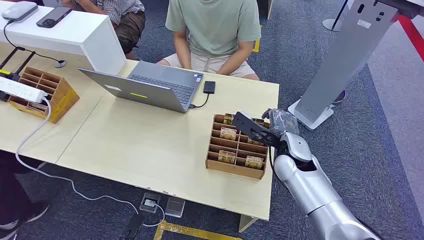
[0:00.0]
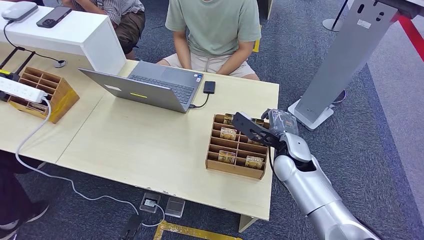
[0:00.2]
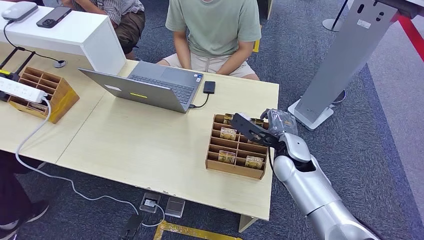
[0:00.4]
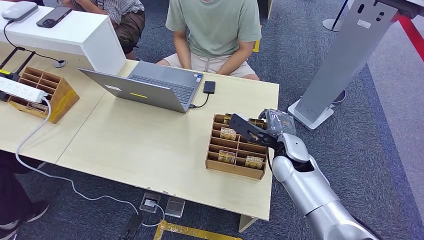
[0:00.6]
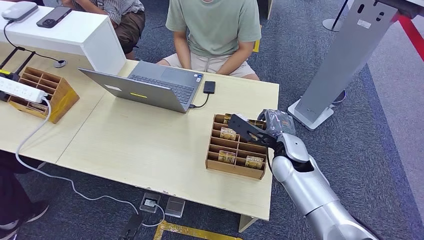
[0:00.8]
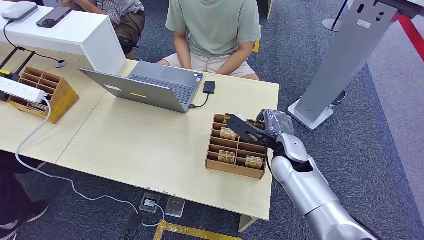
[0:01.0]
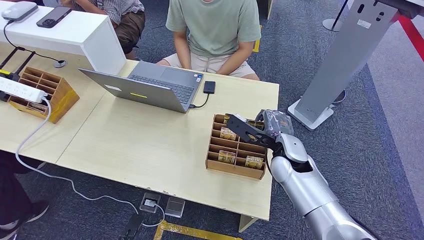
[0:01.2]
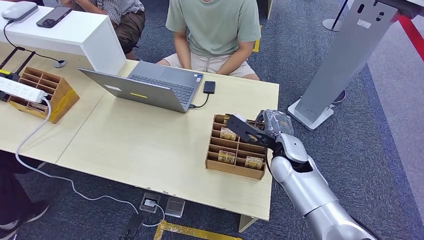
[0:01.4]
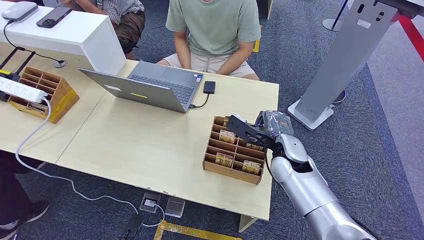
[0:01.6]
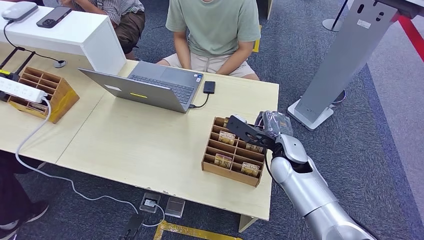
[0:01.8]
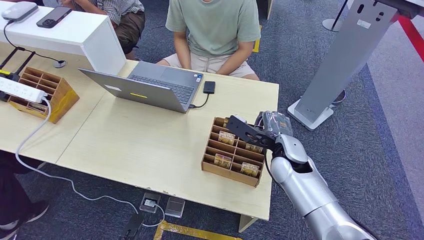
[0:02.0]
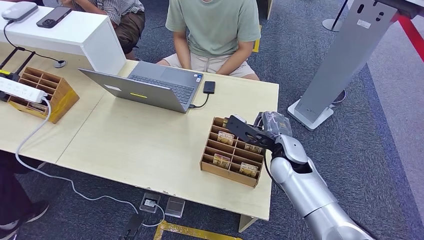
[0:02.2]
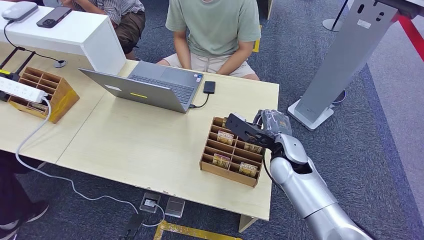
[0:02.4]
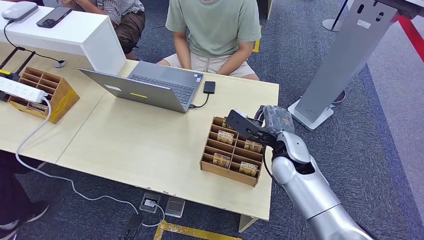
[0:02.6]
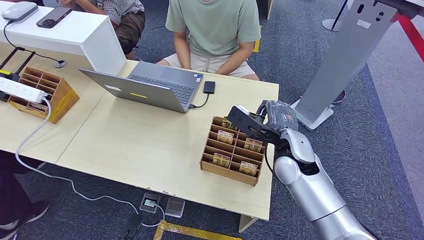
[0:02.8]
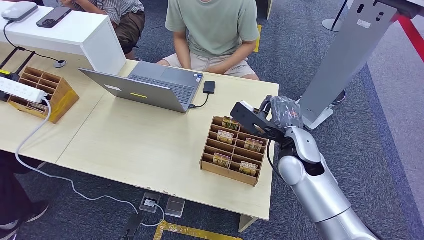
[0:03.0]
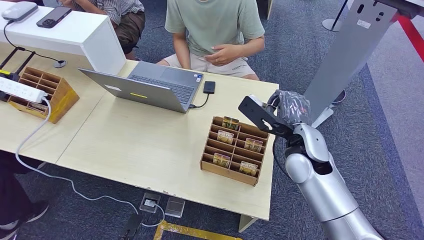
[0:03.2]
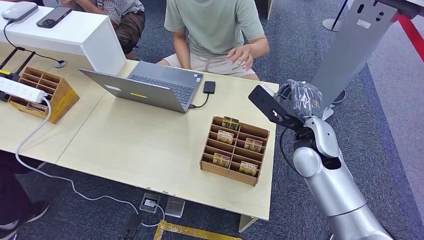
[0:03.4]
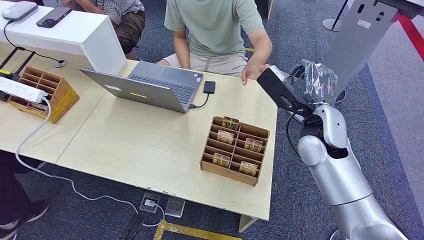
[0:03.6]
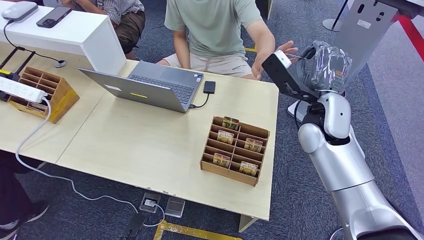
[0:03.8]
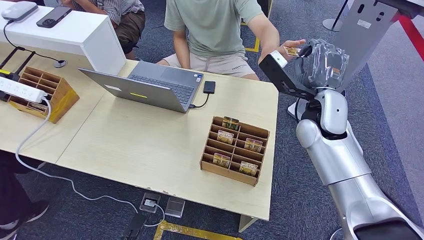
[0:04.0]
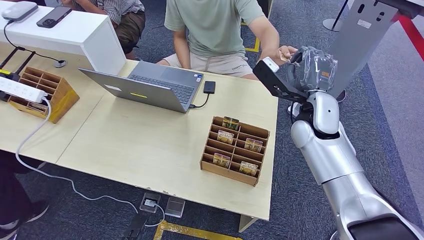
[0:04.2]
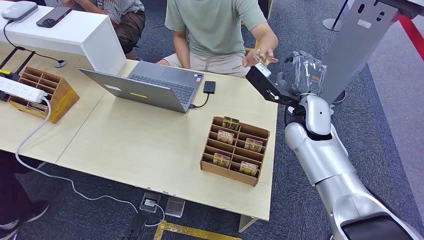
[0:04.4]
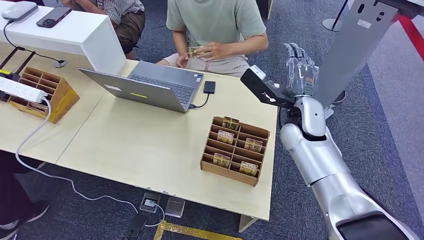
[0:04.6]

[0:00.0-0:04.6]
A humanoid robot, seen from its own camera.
Step, 0:00.0 to 0:02.8: Pick up the room card from the card holder.
Step, 0:03.6 to 0:04.4: Hand the room card to the target.
0:01.6 to 0:03.0: The hands make only small movements.
0:03.0 to 0:04.6: The right hand is displaced forward by about 5 cm.

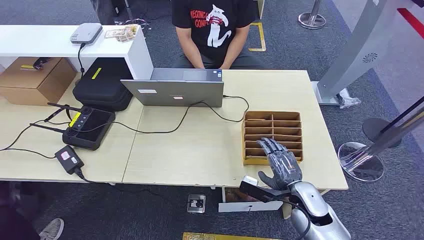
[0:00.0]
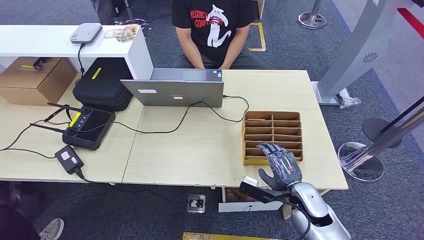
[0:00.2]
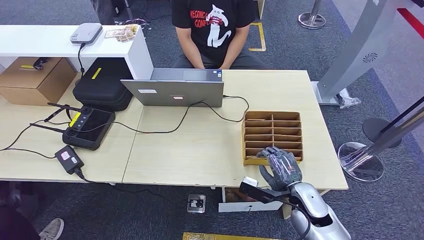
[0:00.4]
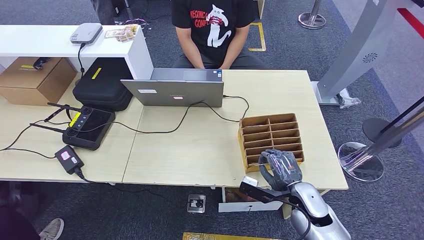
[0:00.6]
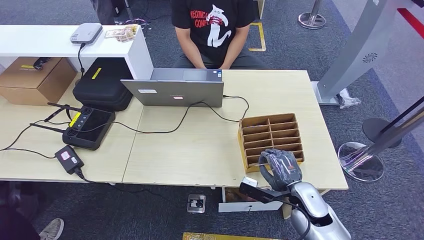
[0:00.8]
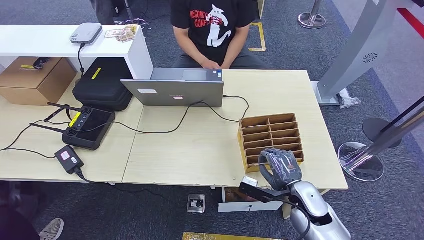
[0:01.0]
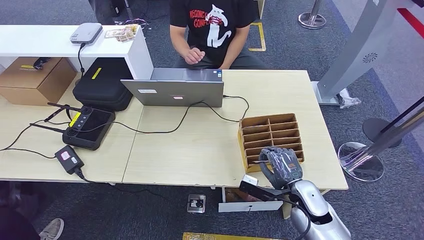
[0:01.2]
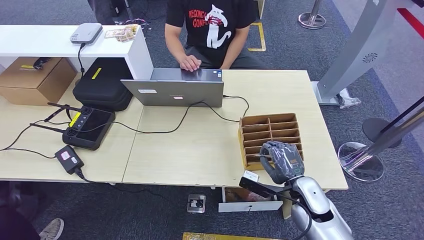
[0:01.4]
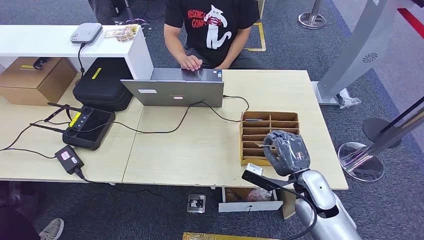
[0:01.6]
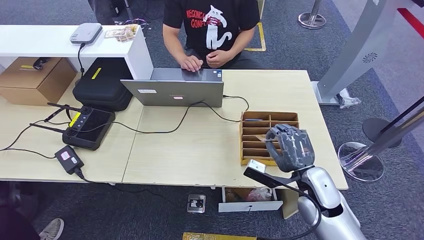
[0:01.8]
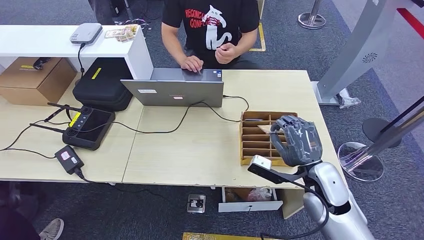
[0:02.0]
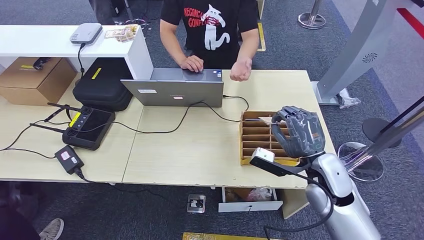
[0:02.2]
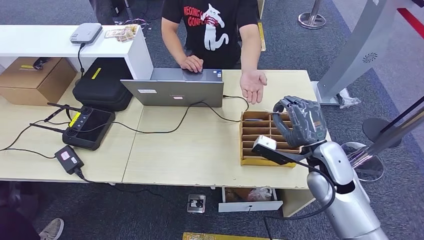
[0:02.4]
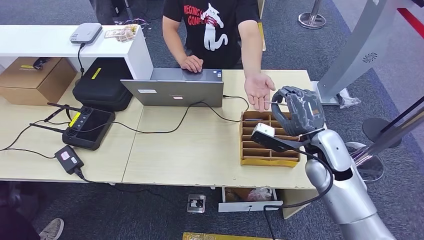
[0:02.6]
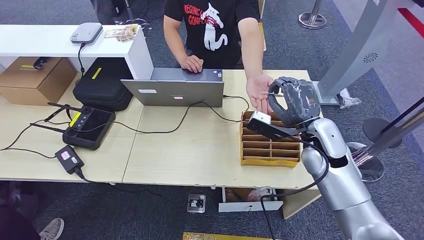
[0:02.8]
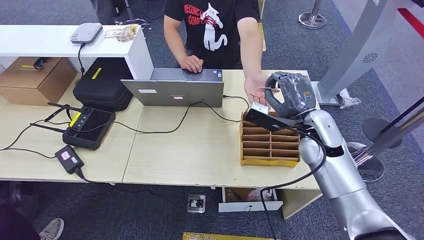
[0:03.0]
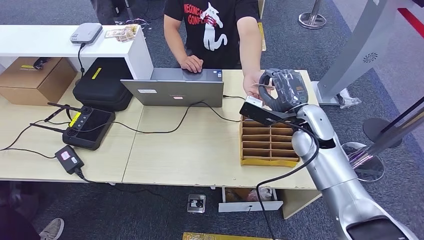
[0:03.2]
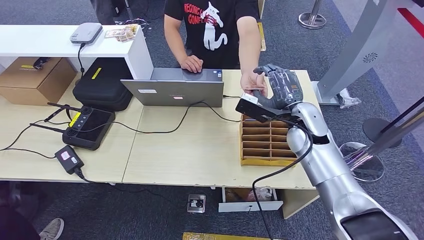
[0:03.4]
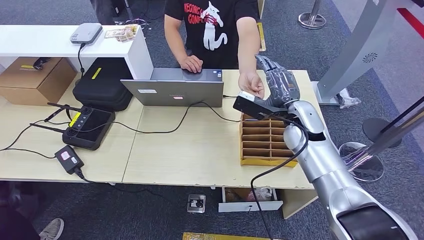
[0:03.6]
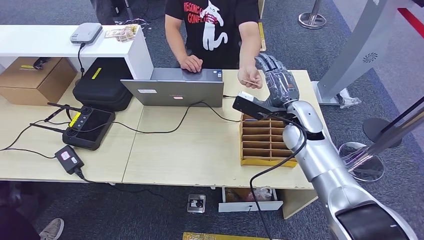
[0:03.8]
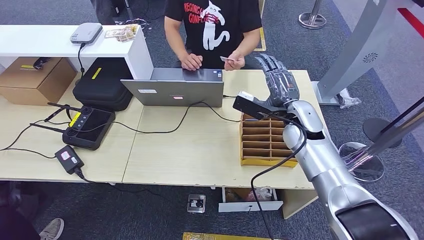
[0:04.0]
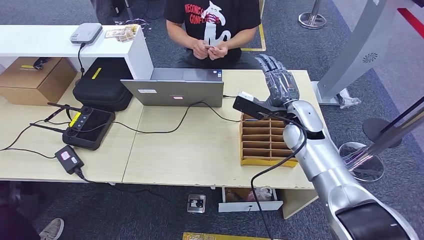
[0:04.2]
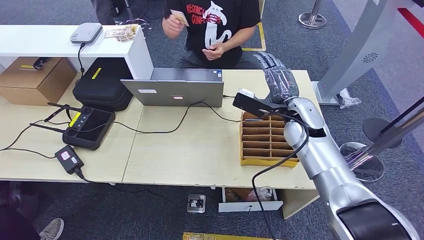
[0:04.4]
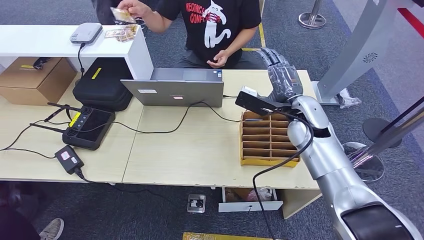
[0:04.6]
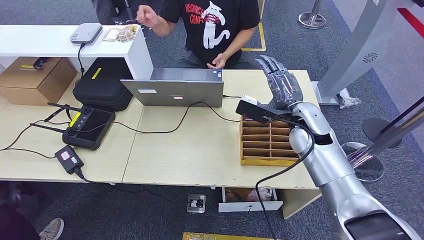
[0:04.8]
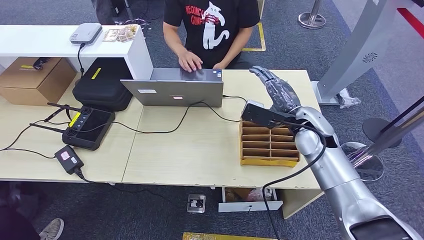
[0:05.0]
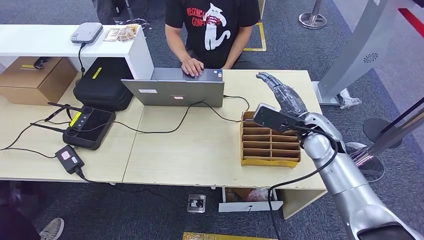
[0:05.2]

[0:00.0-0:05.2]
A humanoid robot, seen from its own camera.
Step, 0:00.0 to 0:03.0: Pick up the room card from the card holder.
Step, 0:03.2 to 0:05.2: Hand the room card to the target.
0:01.8 to 0:03.4: The right hand goes approximately 15 cm forward and upward.
